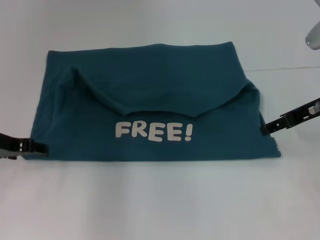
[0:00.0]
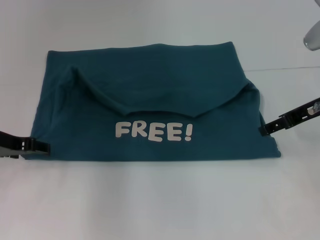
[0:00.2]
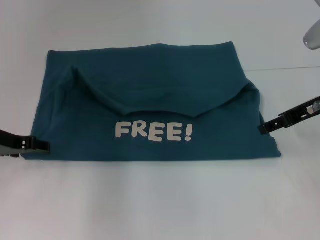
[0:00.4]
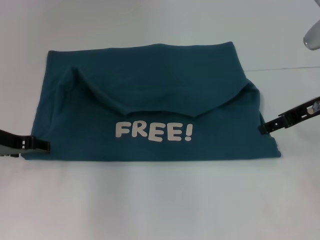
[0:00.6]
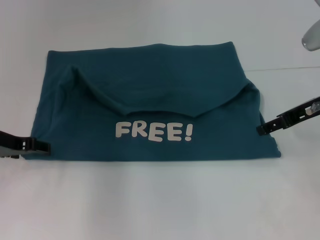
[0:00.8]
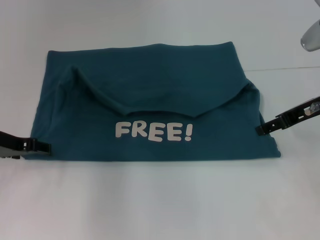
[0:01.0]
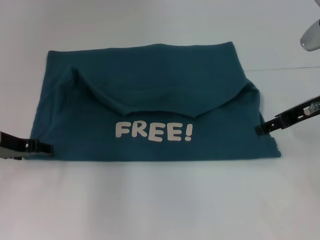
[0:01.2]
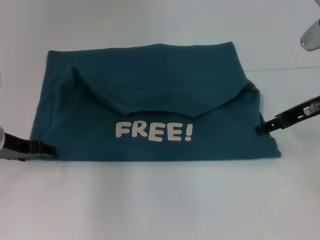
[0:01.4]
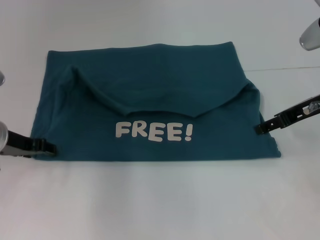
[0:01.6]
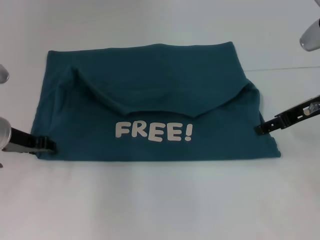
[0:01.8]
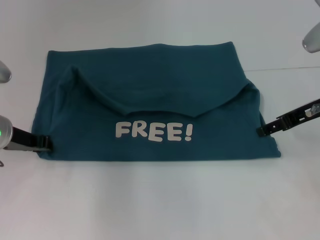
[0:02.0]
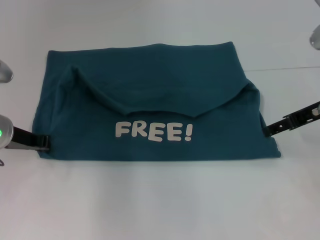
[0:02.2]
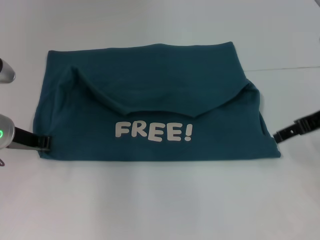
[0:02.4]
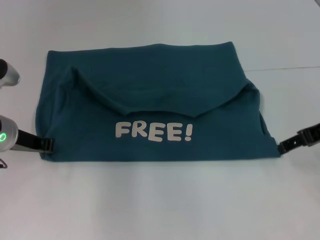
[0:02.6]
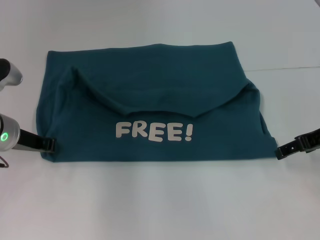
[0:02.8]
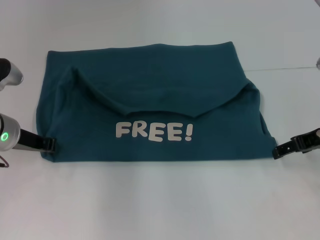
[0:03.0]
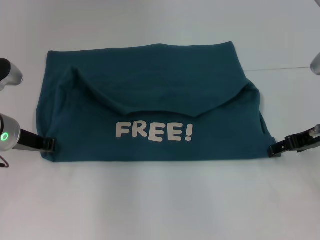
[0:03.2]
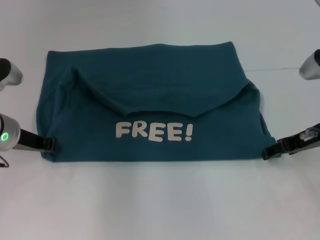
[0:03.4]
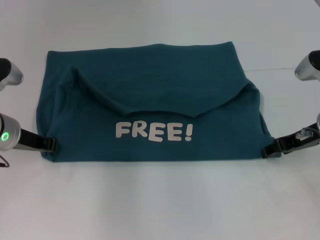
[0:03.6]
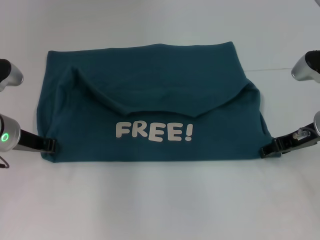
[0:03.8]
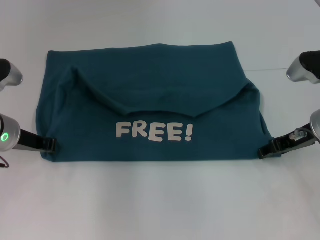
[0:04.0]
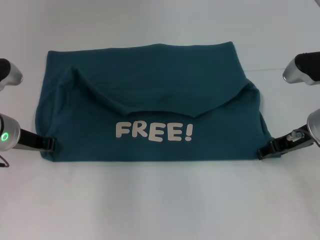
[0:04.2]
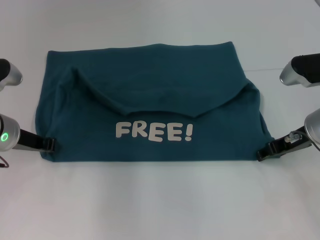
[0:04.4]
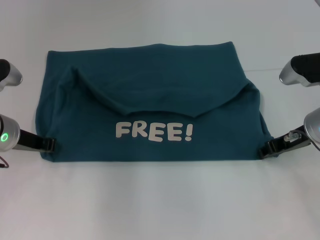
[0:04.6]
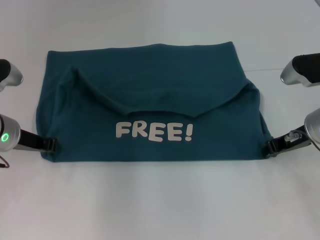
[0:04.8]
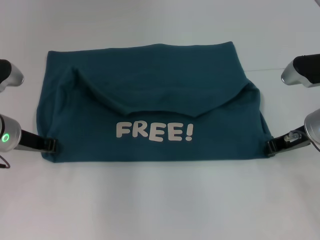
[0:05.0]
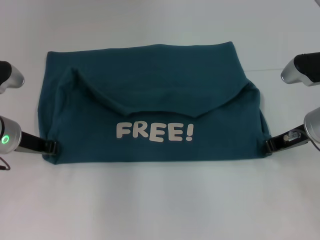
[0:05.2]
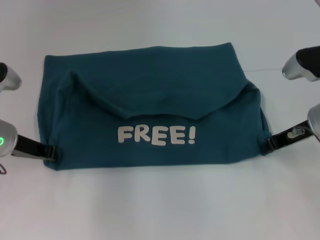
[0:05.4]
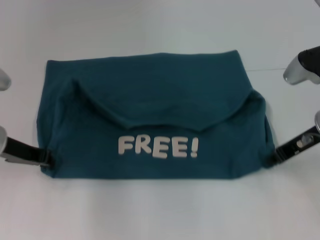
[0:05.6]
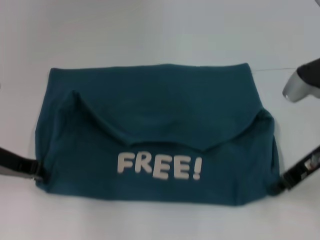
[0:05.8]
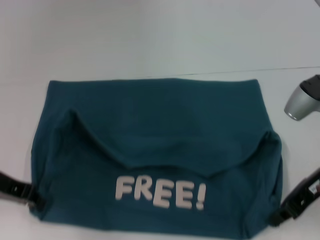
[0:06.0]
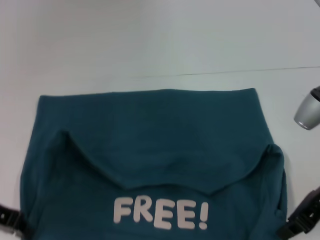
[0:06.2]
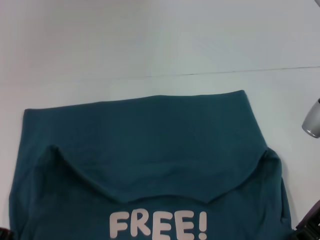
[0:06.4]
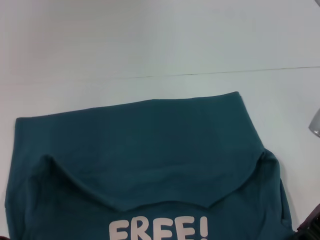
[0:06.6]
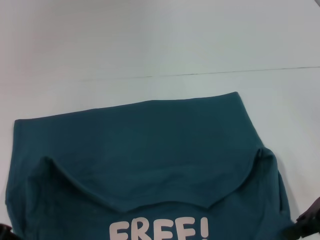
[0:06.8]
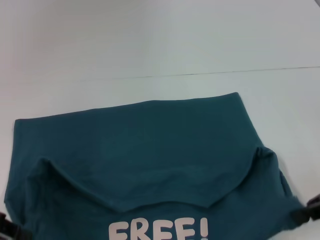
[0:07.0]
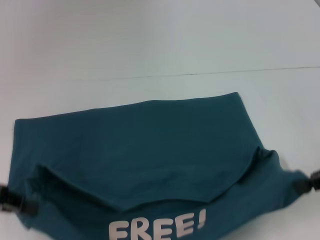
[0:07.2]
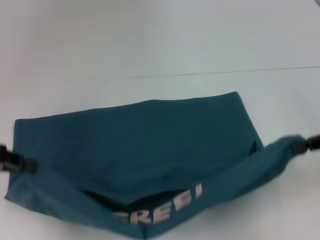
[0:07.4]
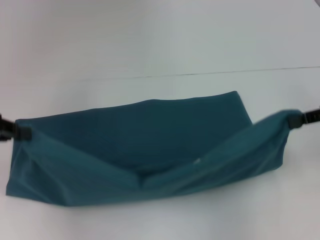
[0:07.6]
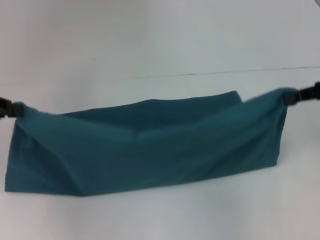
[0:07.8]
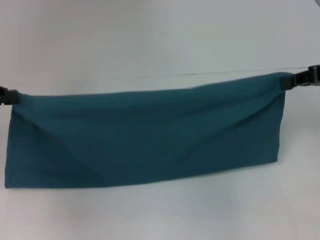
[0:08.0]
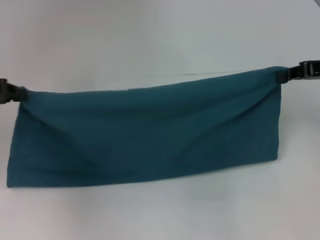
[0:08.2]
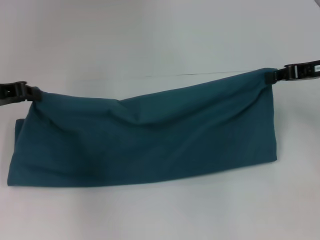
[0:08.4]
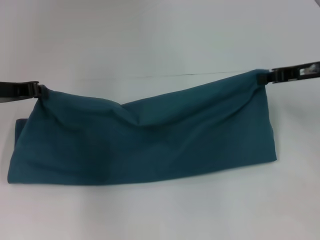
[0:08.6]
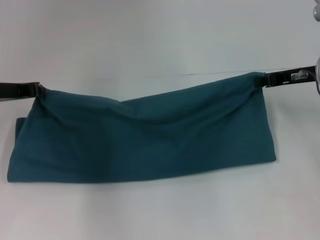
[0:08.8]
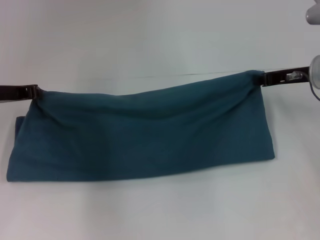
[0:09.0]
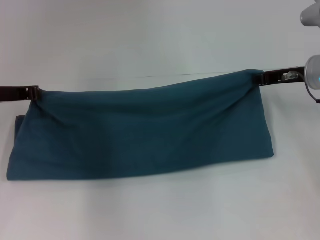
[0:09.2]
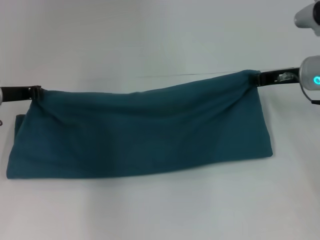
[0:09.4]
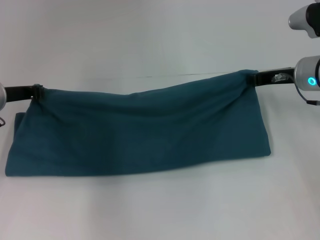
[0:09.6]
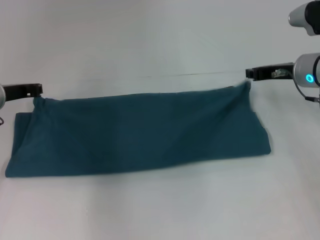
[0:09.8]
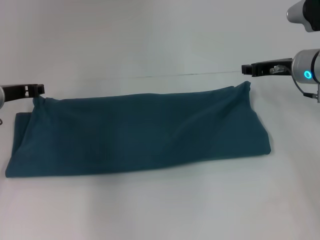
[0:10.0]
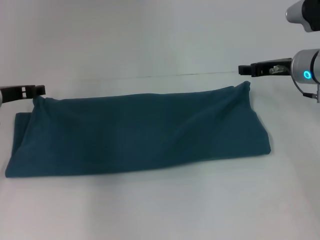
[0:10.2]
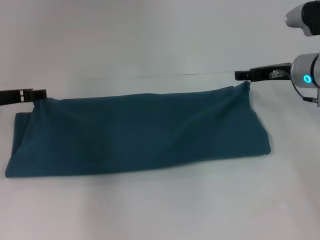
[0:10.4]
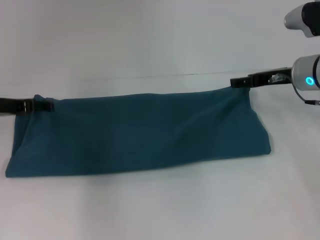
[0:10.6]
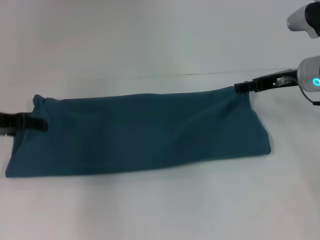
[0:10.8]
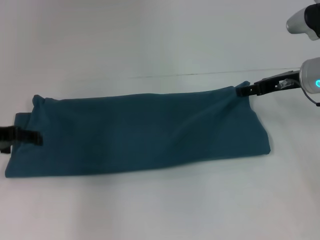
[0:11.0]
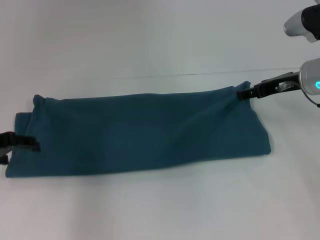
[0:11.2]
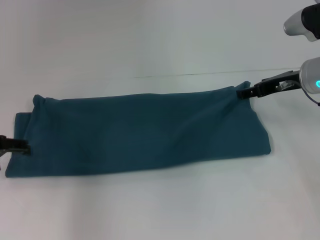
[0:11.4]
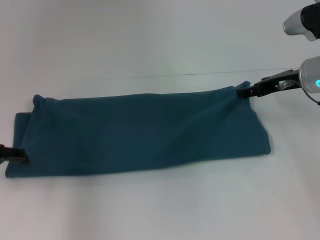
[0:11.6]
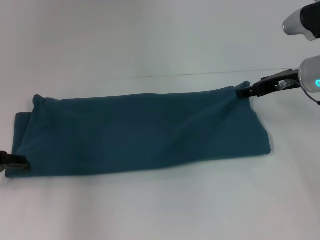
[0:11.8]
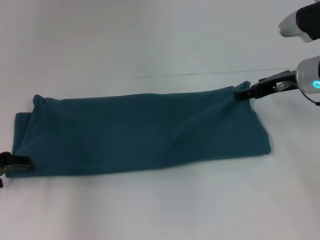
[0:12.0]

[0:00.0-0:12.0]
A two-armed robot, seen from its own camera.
Step, 0:00.0 to 0:05.8: Pull the clothes with your left hand.
Step, 0:00.0 to 0:05.8: Pull the clothes with your right hand.
Step, 0:06.0 to 0:10.0: Fold the clothes to the left.
Step, 0:06.0 to 0:10.0: Fold the clothes to the right.
0:00.0 to 0:01.6: The grippers make only small movements.
0:01.6 to 0:03.0: The left gripper closes.
0:03.0 to 0:04.4: The right gripper ends up about 5 cm from where it was.
0:04.4 to 0:06.0: The grippers both shift backward by approximately 5 cm. The right gripper closes.
0:06.0 to 0:07.6: The left gripper heads upward and to the left, covering some 10 cm. The right gripper travels to the right and upward by some 10 cm.
0:07.6 to 0:09.0: The left gripper moves forward, to the right and downward, some 10 cm. The right gripper shifts some 10 cm forward, to the left and downward.
0:09.0 to 0:10.4: The right gripper opens up; the left gripper opens its fingers.
0:10.4 to 0:12.0: The left gripper travels backward by roughly 10 cm.

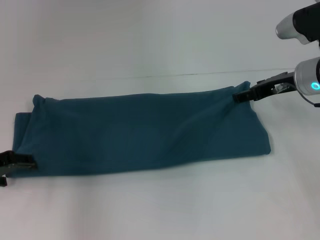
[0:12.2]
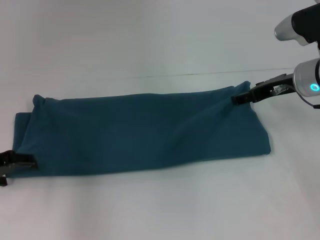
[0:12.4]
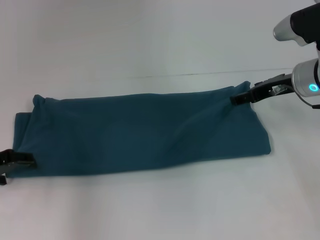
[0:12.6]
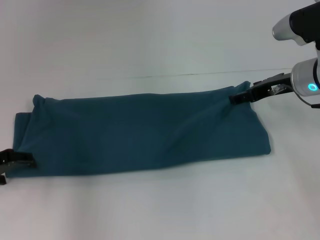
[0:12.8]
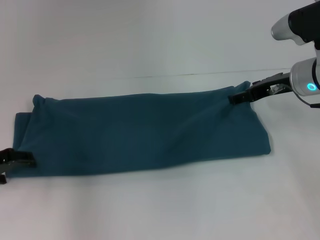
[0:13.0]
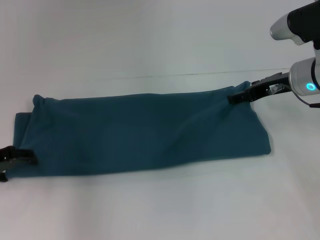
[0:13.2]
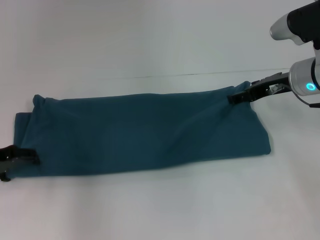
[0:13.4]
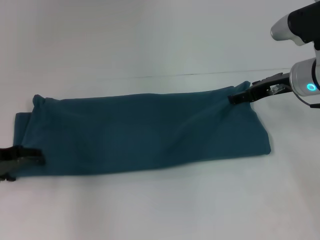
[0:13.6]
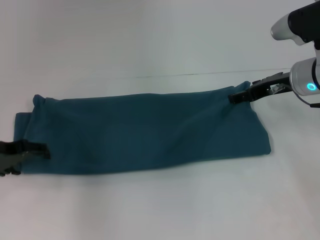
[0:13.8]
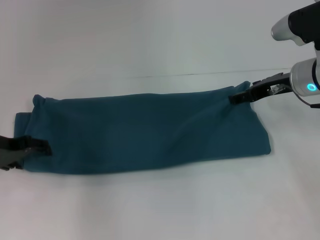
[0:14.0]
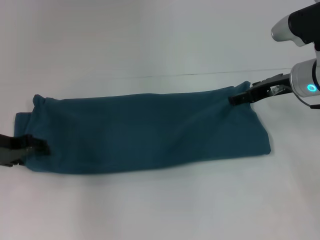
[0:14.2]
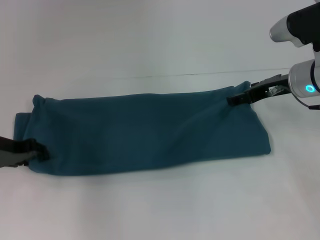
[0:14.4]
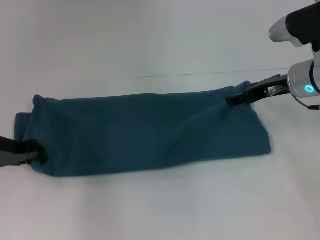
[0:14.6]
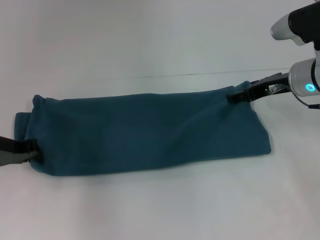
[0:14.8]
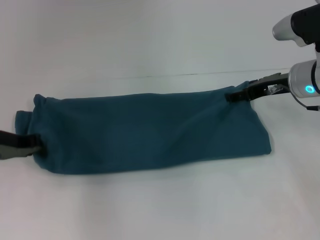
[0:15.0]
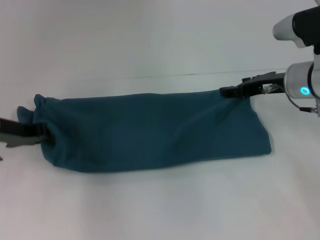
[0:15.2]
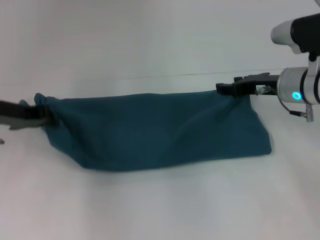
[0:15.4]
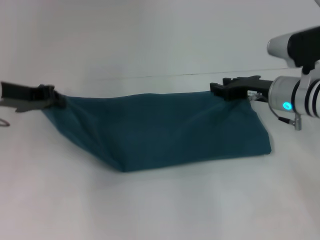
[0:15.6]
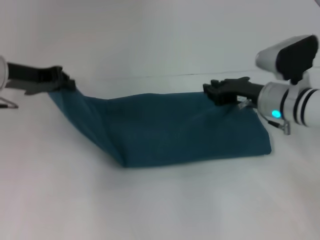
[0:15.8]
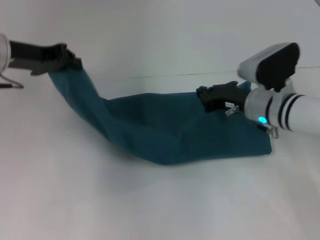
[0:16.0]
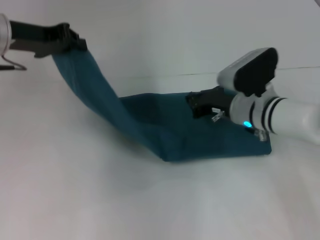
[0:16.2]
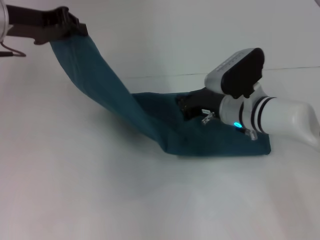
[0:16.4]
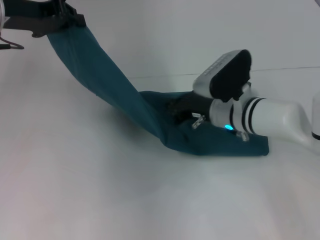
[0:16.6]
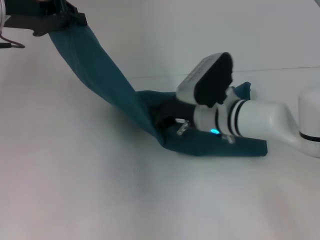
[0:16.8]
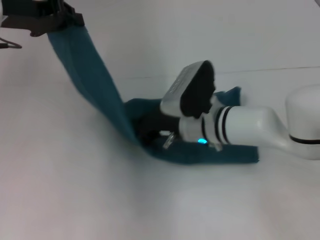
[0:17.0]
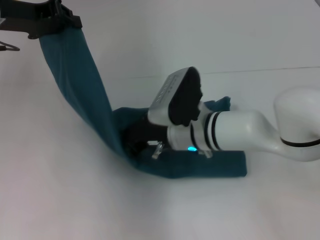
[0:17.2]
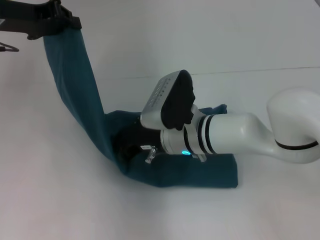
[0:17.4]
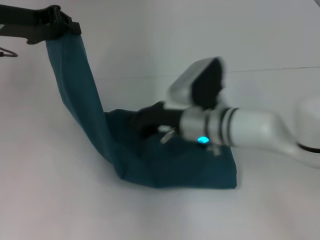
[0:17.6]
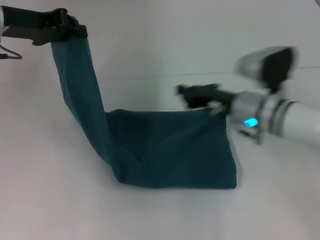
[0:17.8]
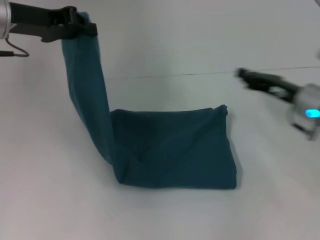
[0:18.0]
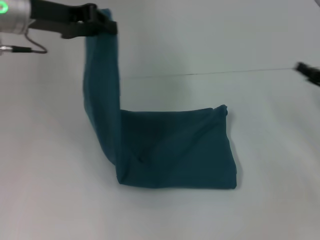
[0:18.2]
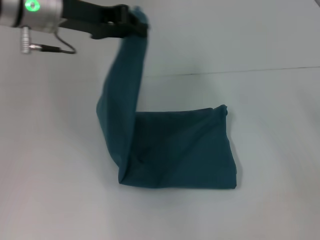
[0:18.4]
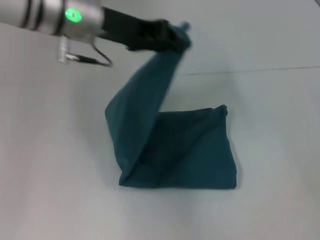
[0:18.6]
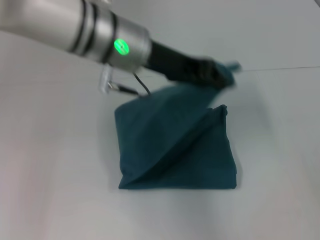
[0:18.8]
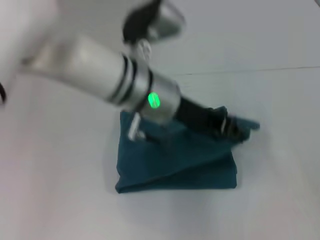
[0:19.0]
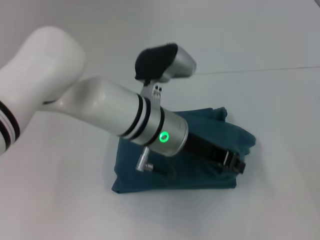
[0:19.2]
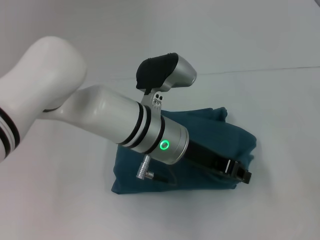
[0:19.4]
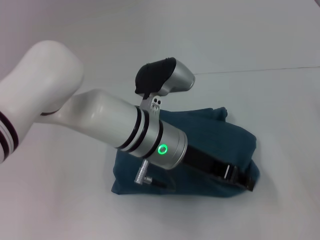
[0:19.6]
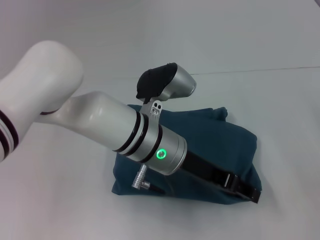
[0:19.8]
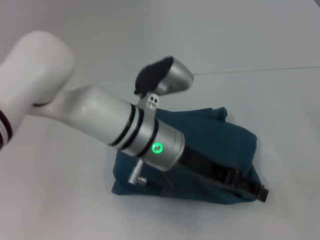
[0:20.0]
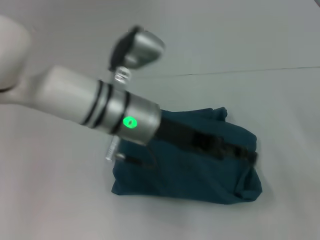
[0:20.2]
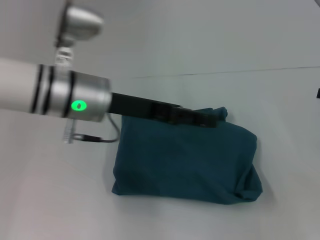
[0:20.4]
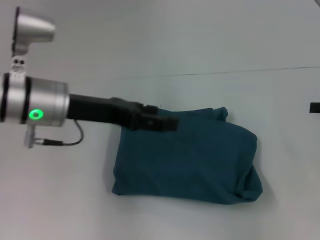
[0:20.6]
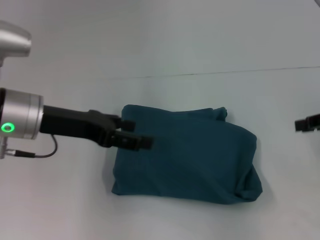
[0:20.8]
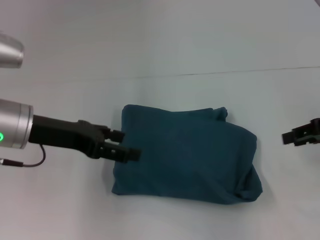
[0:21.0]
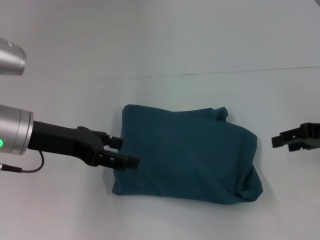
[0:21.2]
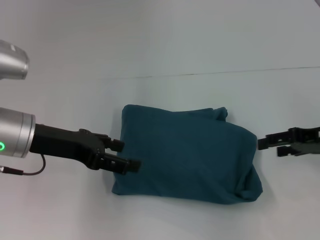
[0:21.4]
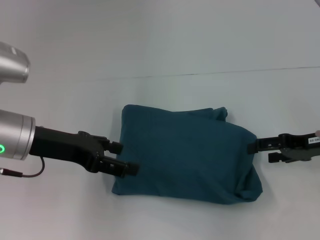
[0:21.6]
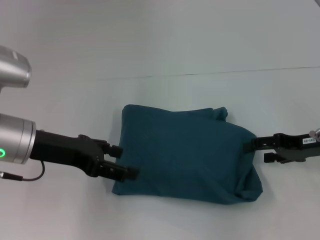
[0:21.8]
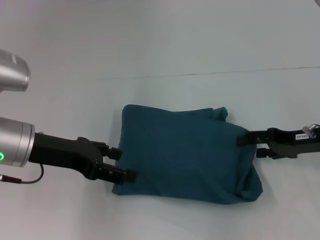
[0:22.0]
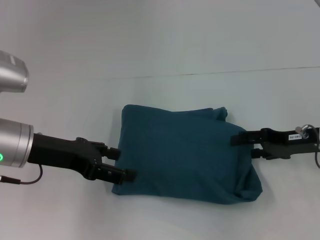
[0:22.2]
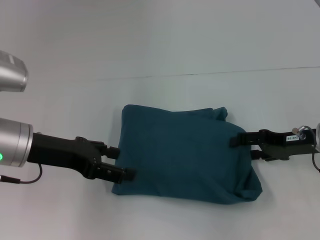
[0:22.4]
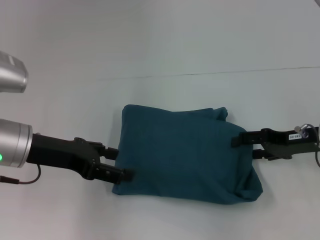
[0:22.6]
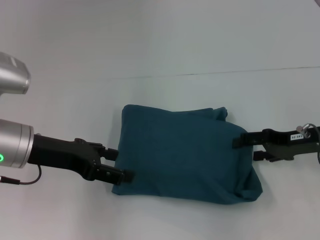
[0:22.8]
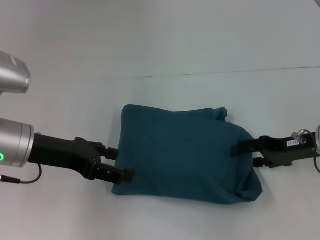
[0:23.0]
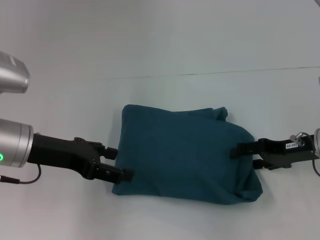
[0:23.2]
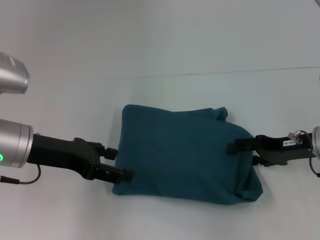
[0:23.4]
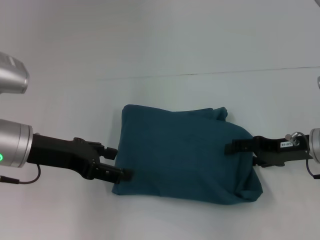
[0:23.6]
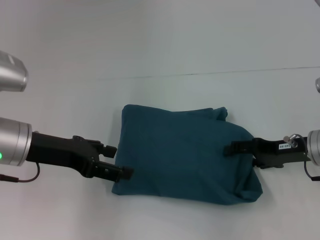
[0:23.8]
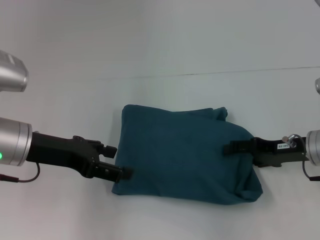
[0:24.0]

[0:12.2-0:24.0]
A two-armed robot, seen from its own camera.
Step, 0:12.2 to 0:17.4: Press the middle of the clothes with your right hand.
Step, 0:17.6 to 0:20.0: Fold the clothes to the left.
0:12.2 to 0:13.6: There are only small adjustments of the grippers.
0:13.6 to 0:15.2: The left gripper closes its fingers.
0:15.2 to 0:16.6: The right gripper heads to the left and downward, covering about 10 cm, and closes its fingers, while the left gripper travels upward and forward by some 15 cm.
0:16.6 to 0:18.2: The right gripper travels to the right by approximately 20 cm.
0:18.2 to 0:19.6: The right gripper is displaced to the right by about 5 cm. The left gripper moves to the right, downward and backward, approximately 25 cm.
0:19.6 to 0:21.0: The left gripper is displaced to the left by approximately 20 cm, and opens up. Meanwhile the right gripper moves upward and to the left, approximately 10 cm.
0:21.0 to 0:22.6: The right gripper shifts some 10 cm downward and to the left, and opens.
0:22.6 to 0:24.0: The grippers make only small movements.
